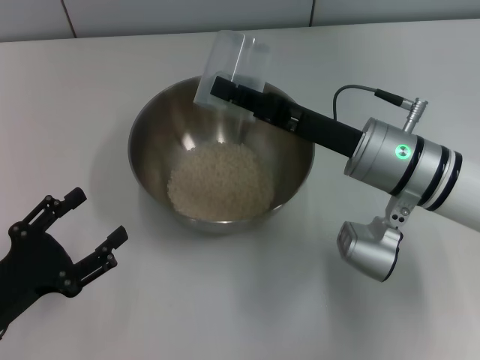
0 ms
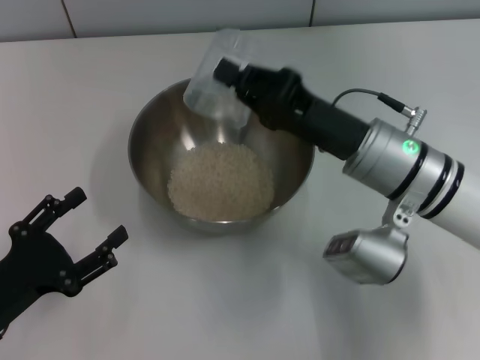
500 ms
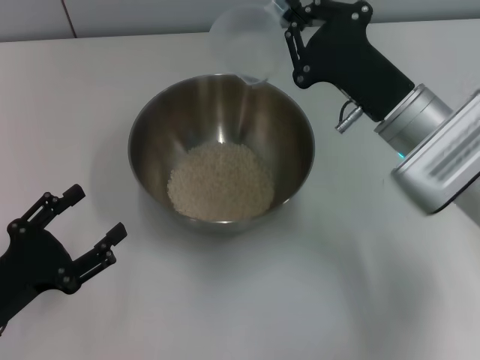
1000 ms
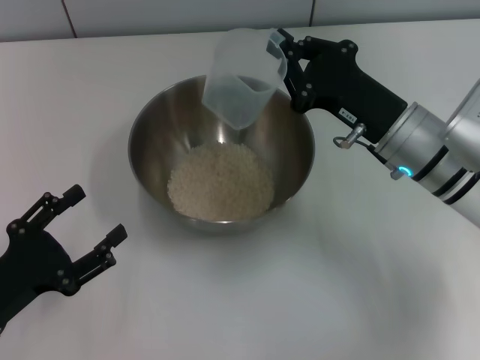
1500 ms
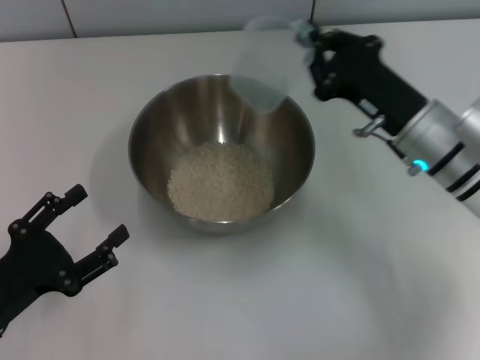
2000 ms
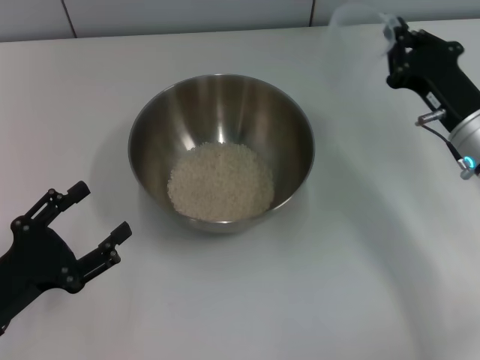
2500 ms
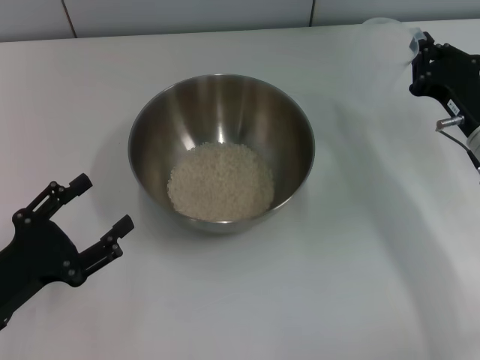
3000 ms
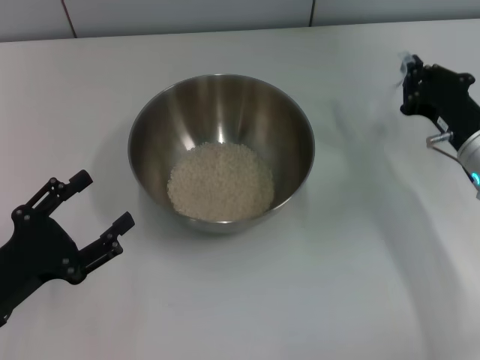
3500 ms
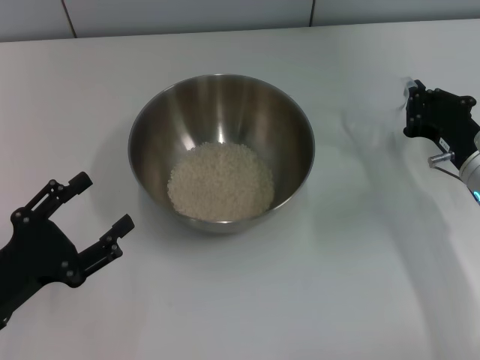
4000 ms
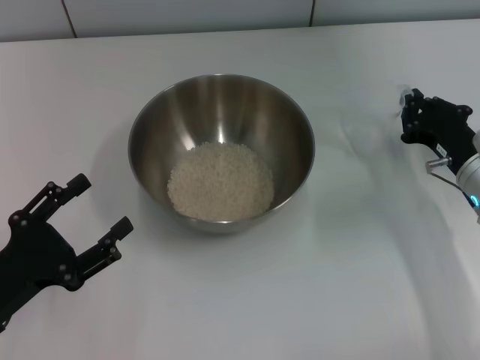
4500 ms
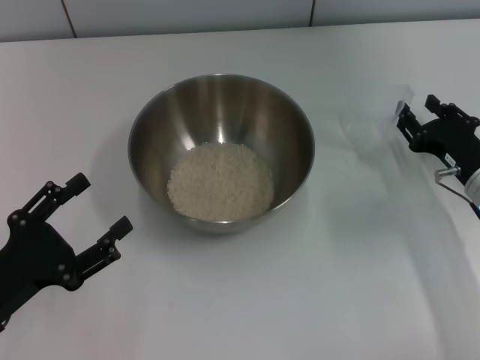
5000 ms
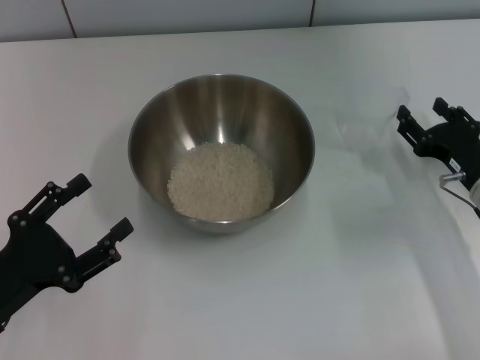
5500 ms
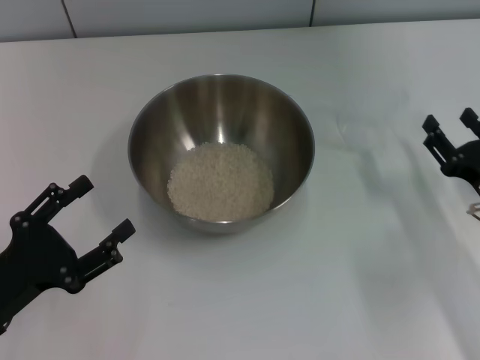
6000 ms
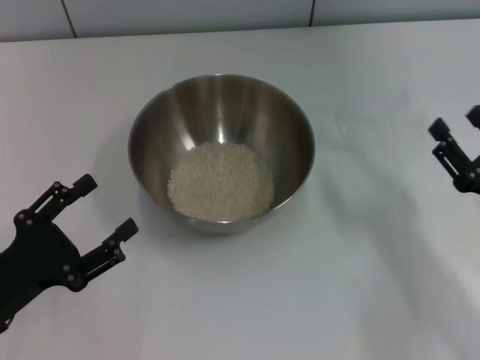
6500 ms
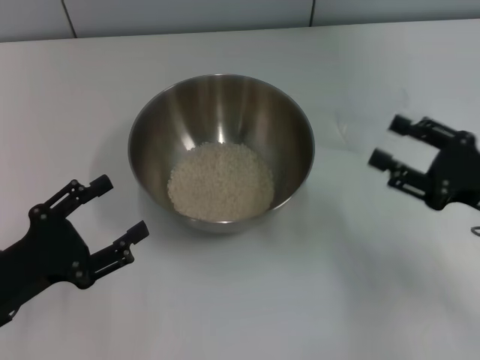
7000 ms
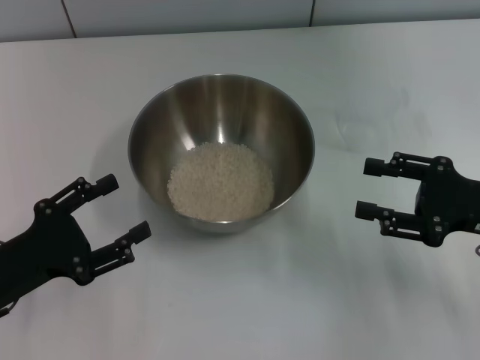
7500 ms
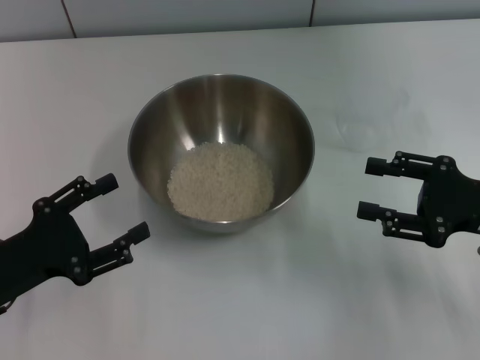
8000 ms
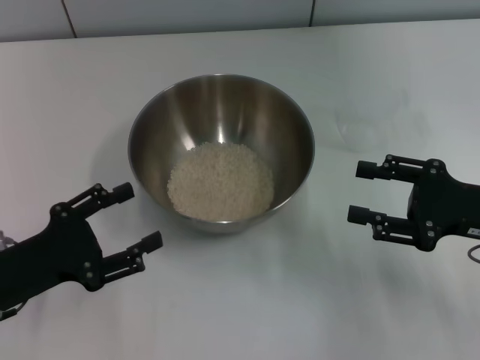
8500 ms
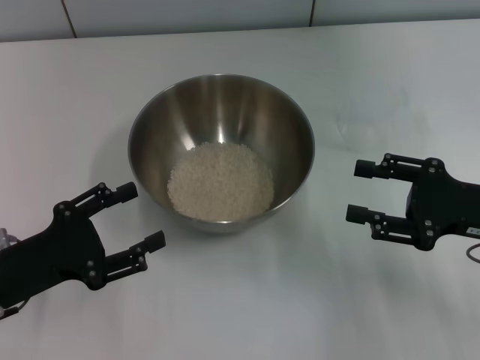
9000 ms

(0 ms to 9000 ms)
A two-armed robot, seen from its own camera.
Task of the whole recording: Place the bowl in the middle of the table with one hand and pour the rice from the grain cup into it with the other hand.
Step, 1500 ms - 5500 ms: Place the cup on the table with the right gripper.
0 ms - 2000 ms: The right gripper shifts some 5 cm to the right.
2000 ms - 4500 ms: The right gripper is displaced to the right and downward by approximately 10 cm.
4500 ms - 7000 ms: The right gripper shifts roughly 5 cm backward, and opens up.
7000 ms - 9000 ms: The grippers make only small movements.
